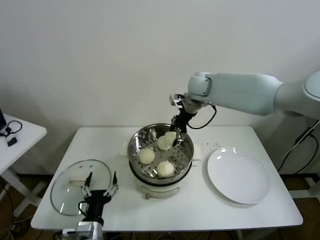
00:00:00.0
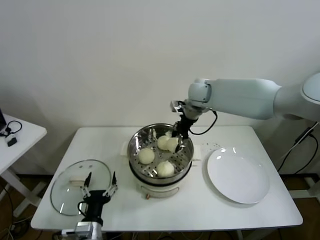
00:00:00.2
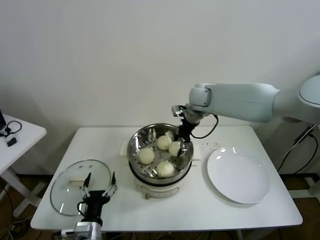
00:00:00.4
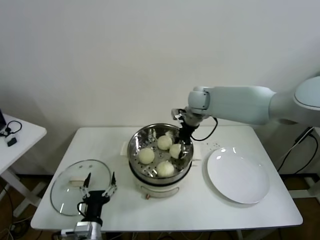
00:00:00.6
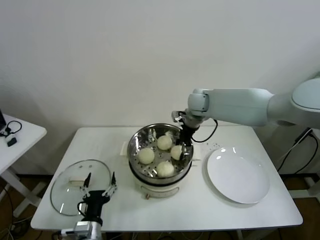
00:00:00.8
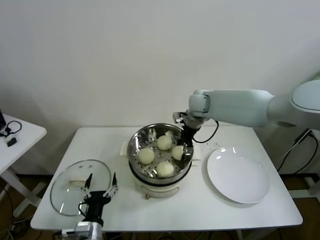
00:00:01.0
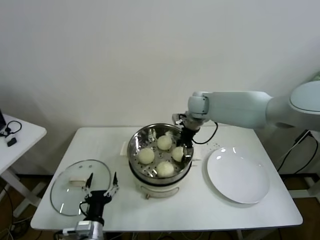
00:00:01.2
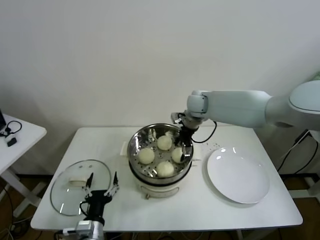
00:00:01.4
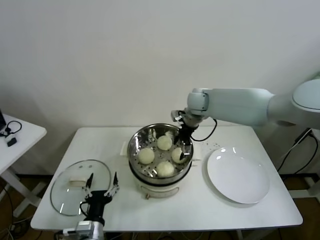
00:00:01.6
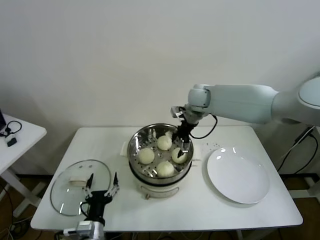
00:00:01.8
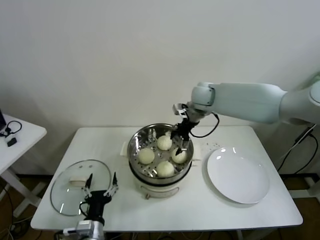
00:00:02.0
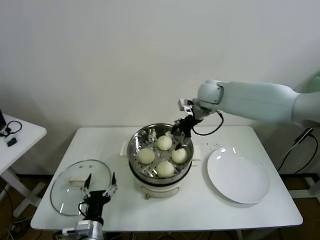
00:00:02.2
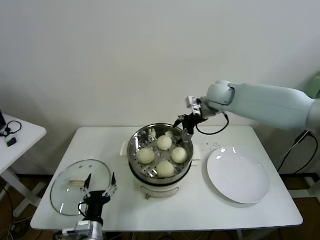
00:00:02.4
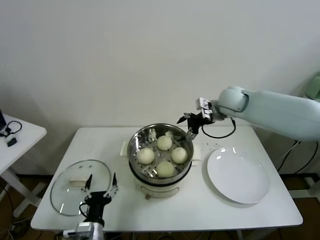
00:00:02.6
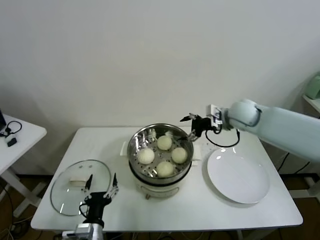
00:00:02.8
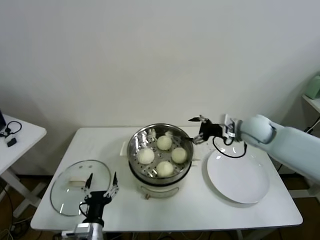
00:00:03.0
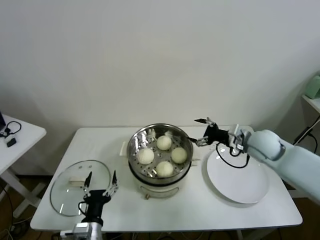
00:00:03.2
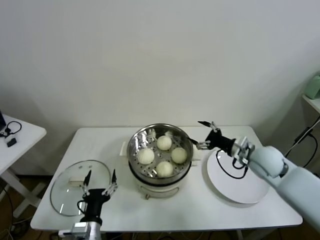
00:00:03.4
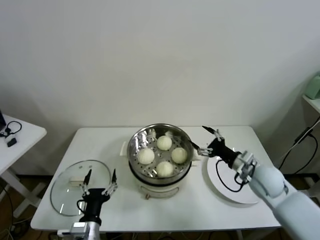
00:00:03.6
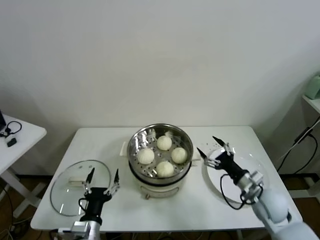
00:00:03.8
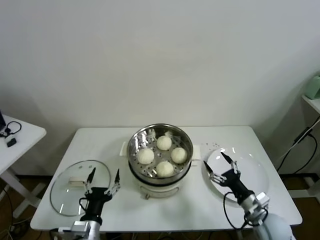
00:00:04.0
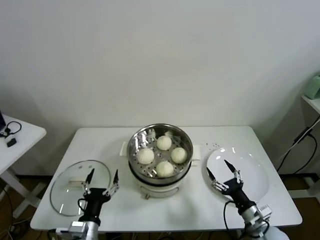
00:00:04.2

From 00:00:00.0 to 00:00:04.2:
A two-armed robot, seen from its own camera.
Task of the whole recording: take steamed baozi put them in steamer.
From 00:00:00.0 to 00:00:01.4: The right gripper moves downward, some 5 cm, and opens.
From 00:00:01.4 to 00:00:02.8: The right gripper is displaced to the right and backward by approximately 15 cm.
From 00:00:02.8 to 00:00:04.2: The right gripper shifts roughly 40 cm backward and downward.
